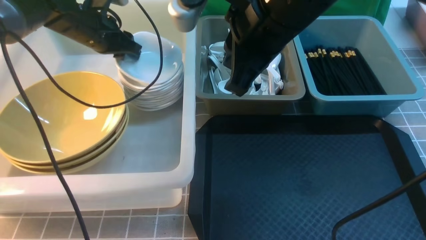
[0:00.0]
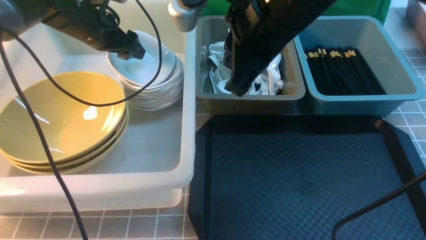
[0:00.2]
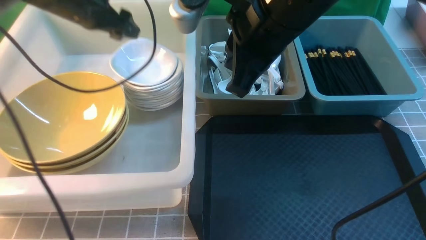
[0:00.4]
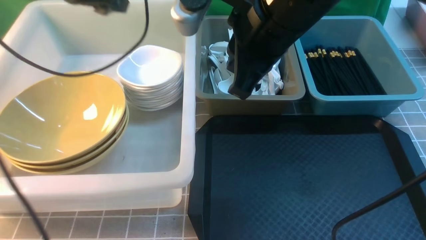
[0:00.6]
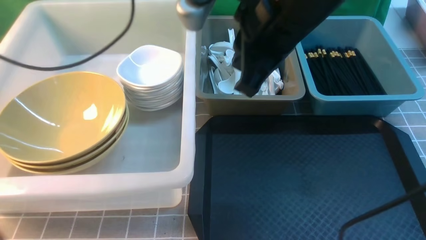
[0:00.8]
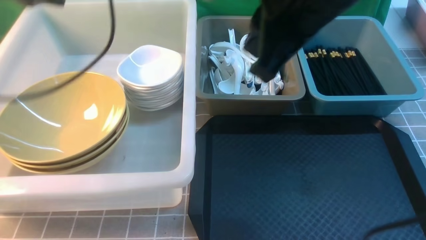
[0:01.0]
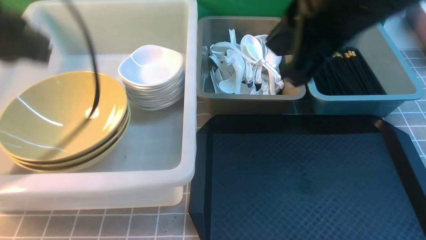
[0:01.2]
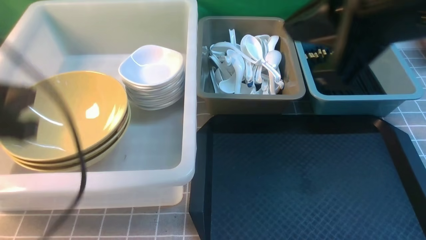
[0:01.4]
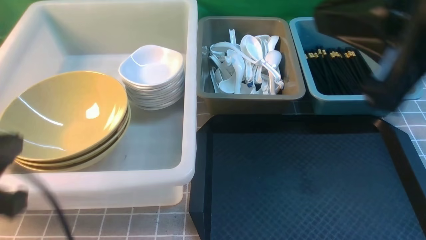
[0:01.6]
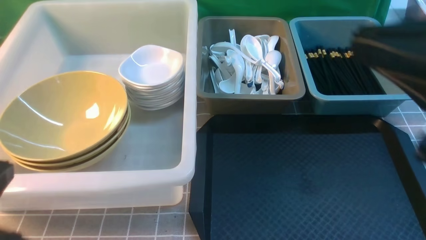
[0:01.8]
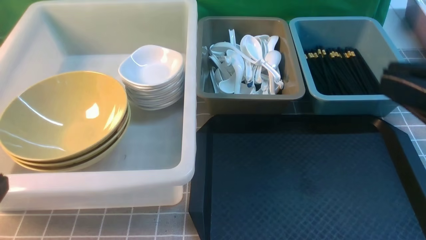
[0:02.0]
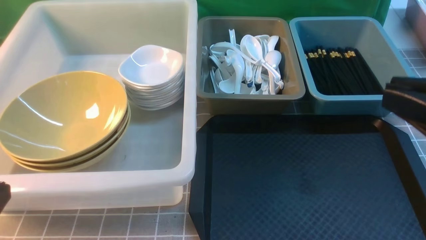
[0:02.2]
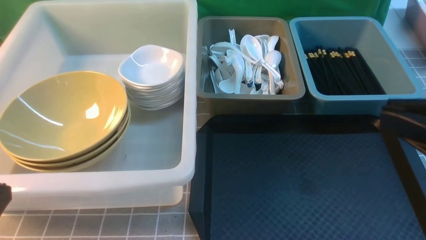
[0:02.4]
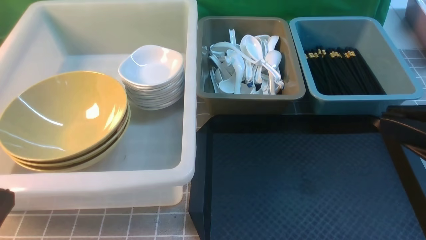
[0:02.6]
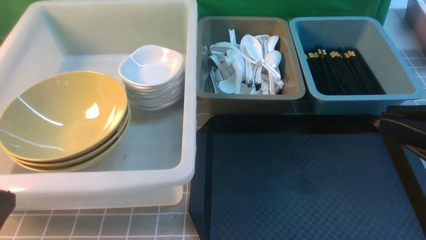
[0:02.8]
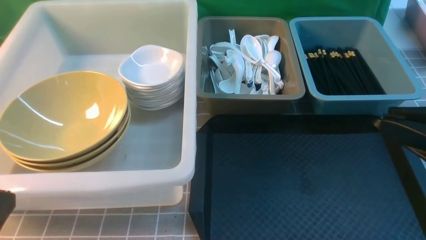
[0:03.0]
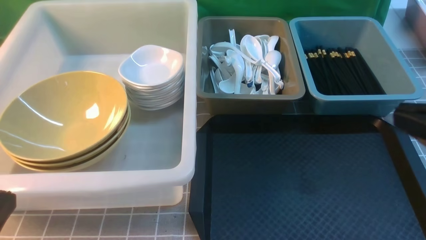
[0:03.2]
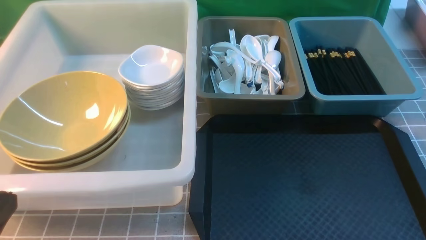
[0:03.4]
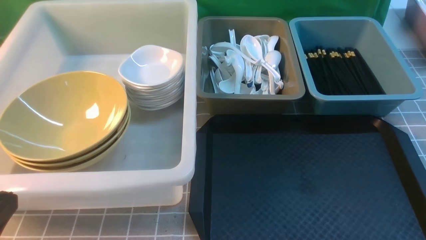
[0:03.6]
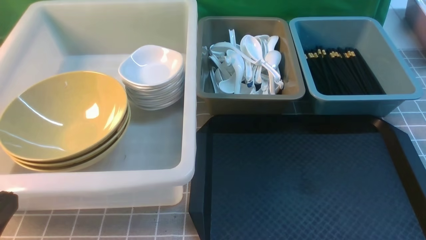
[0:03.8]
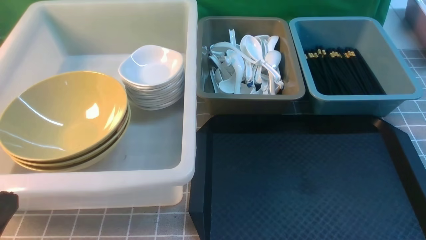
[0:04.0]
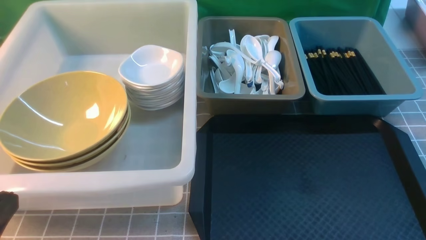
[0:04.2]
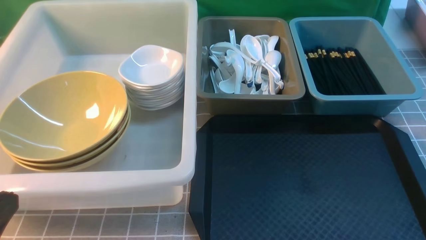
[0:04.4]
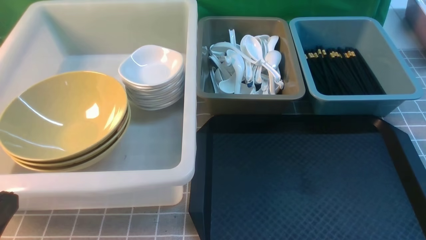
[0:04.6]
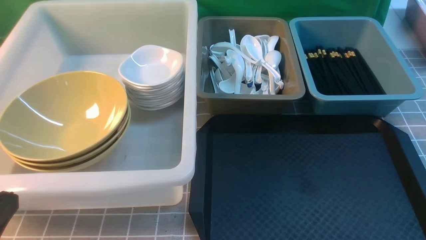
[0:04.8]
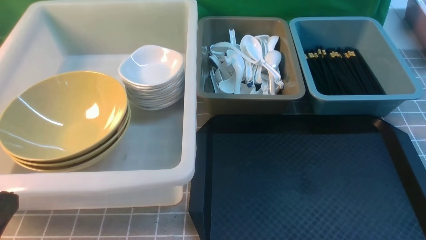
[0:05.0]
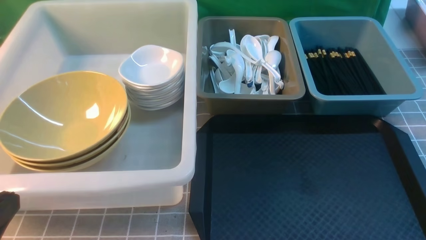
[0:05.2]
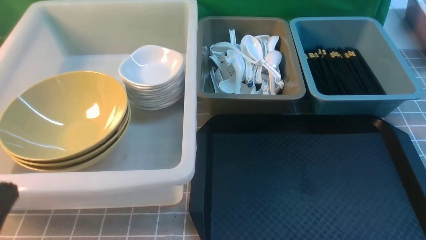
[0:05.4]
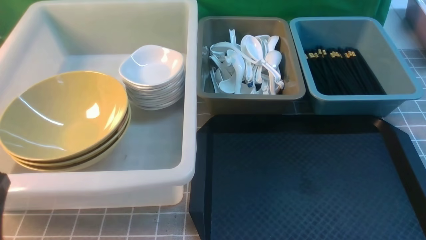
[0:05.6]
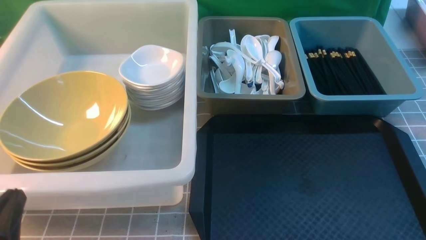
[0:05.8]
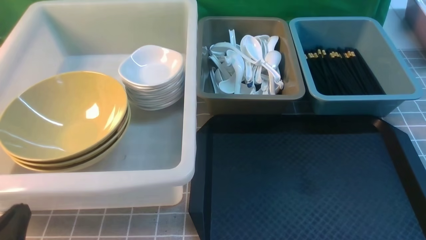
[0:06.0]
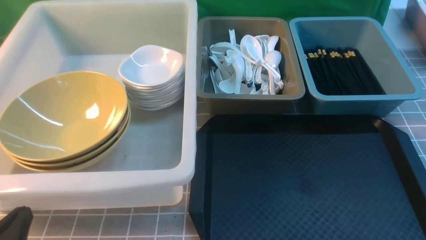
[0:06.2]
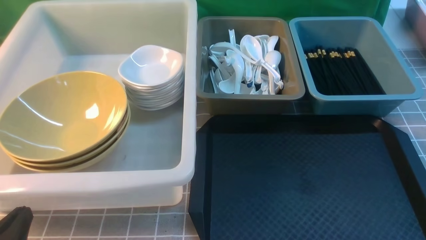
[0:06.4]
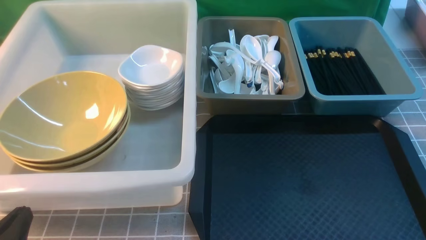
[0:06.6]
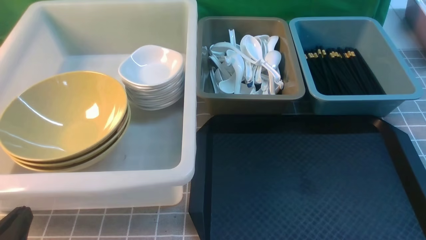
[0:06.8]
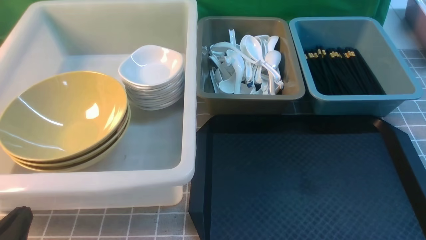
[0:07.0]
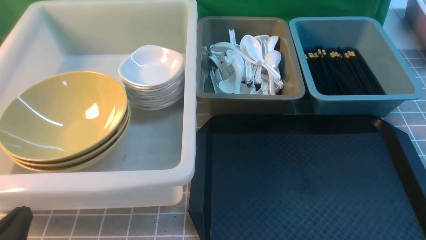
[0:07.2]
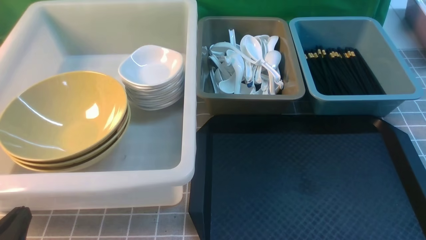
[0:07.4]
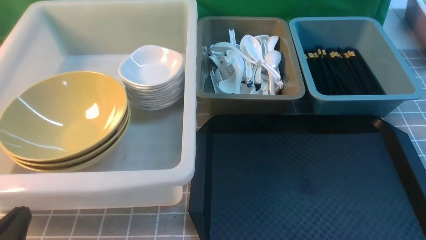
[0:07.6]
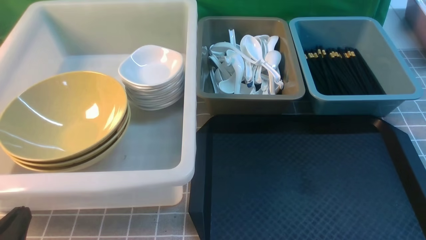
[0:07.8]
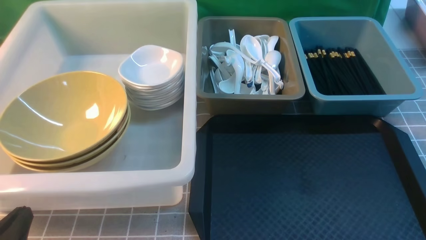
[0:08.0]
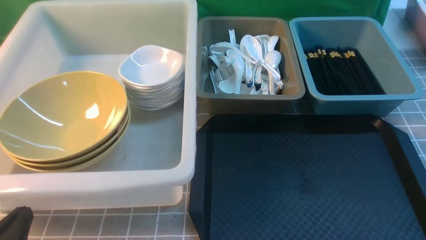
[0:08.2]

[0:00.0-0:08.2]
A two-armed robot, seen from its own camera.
Task of the whole recording: on grey table put chopsticks spoon bowls plates into blue grey white boxes.
0:00.0 to 0:01.6: The right gripper moves backward and to the right, some 20 cm. The left gripper moves backward, some 40 cm, and closes its fingers.
0:01.6 to 0:03.2: The right gripper goes some 10 cm downward and to the right, while the left gripper heads backward, covering roughly 5 cm.
0:03.2 to 0:05.0: The right gripper goes some 20 cm downward and to the right.
0:05.0 to 0:06.6: The left gripper heads downward, covering some 10 cm.
0:06.6 to 0:08.2: Both grippers stay put.
